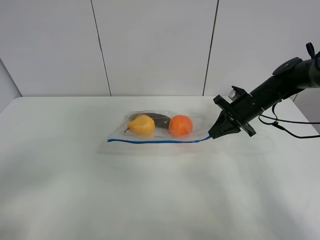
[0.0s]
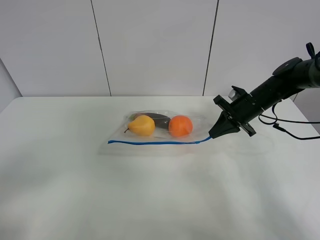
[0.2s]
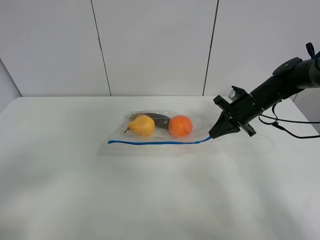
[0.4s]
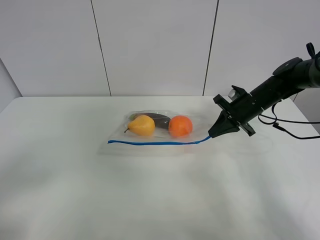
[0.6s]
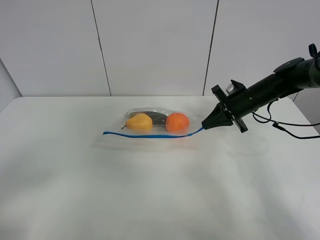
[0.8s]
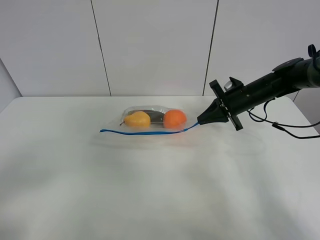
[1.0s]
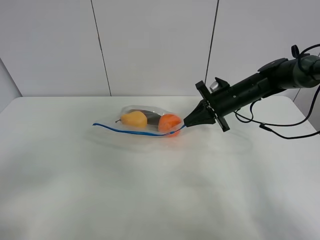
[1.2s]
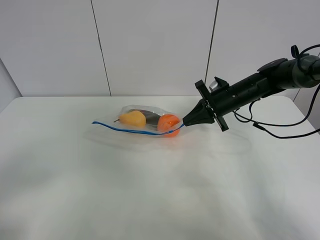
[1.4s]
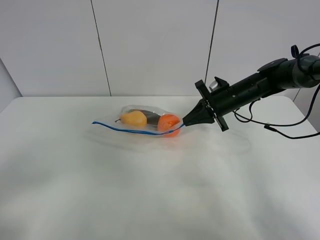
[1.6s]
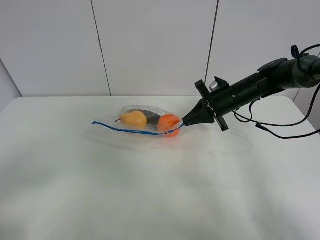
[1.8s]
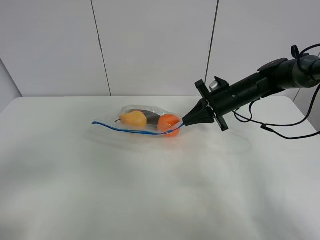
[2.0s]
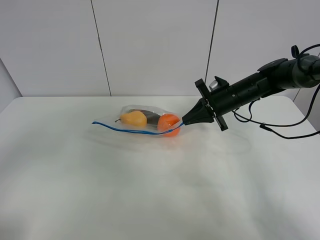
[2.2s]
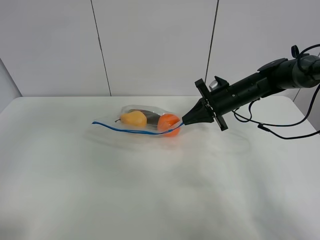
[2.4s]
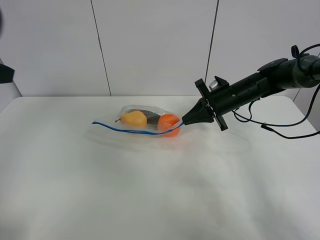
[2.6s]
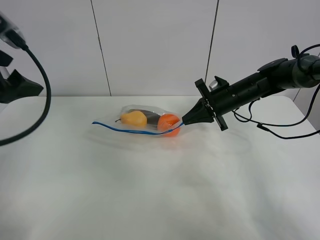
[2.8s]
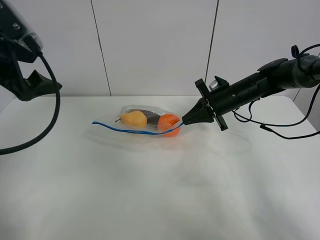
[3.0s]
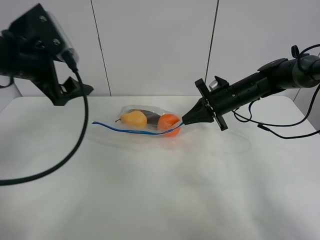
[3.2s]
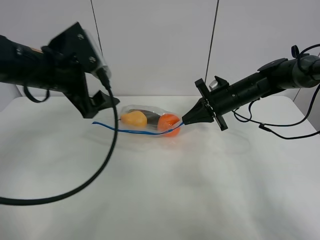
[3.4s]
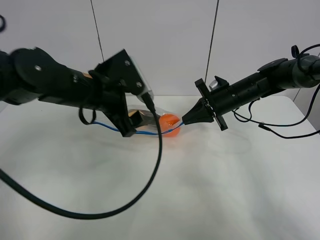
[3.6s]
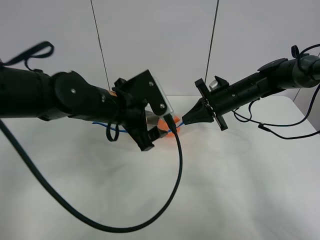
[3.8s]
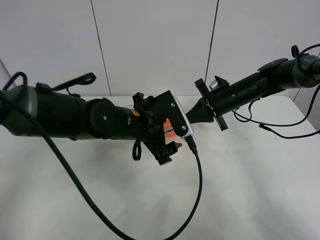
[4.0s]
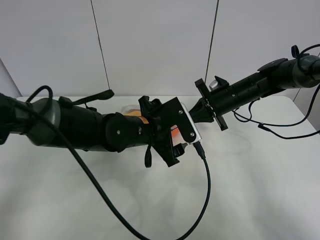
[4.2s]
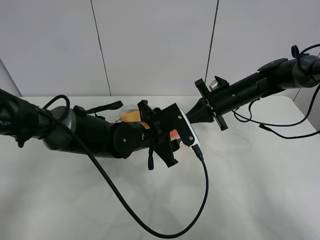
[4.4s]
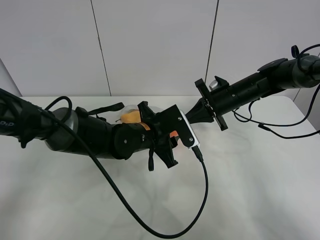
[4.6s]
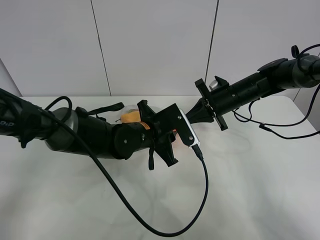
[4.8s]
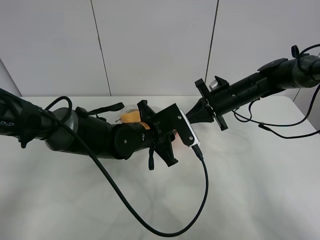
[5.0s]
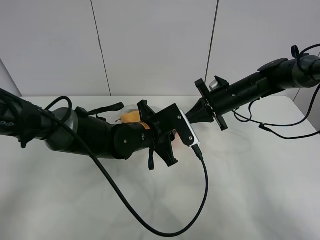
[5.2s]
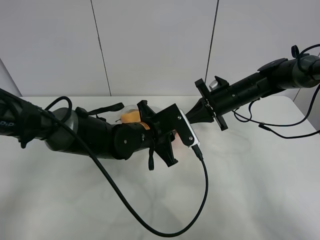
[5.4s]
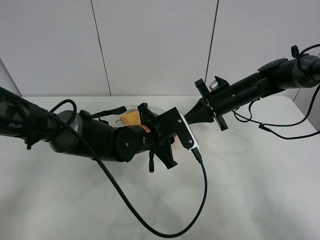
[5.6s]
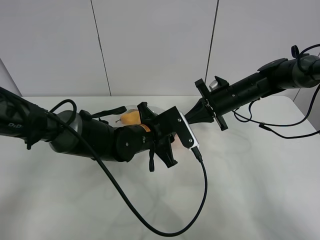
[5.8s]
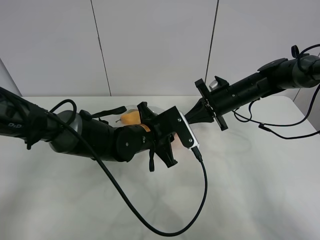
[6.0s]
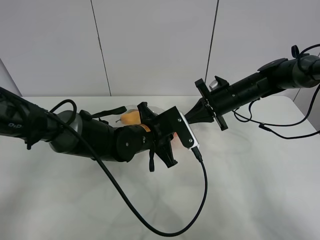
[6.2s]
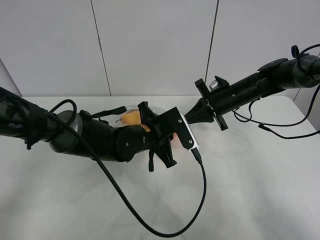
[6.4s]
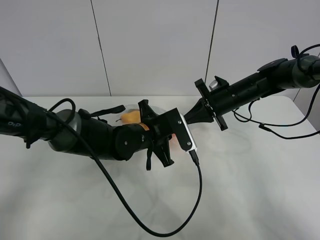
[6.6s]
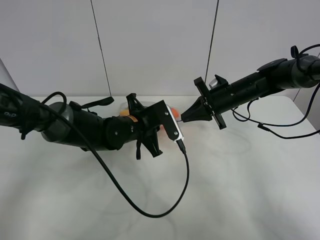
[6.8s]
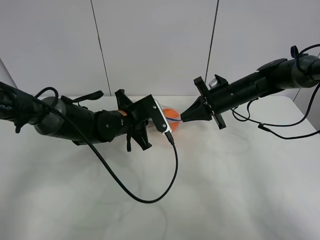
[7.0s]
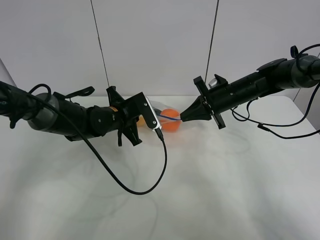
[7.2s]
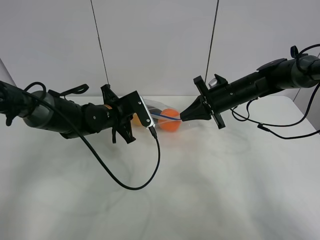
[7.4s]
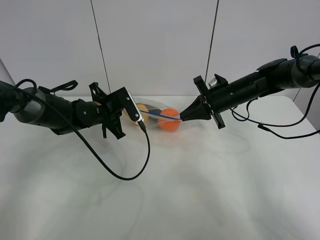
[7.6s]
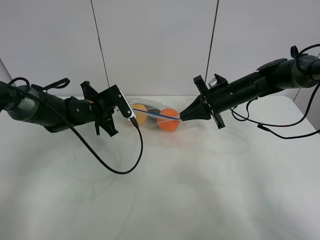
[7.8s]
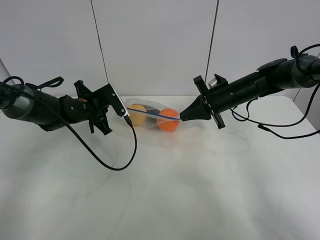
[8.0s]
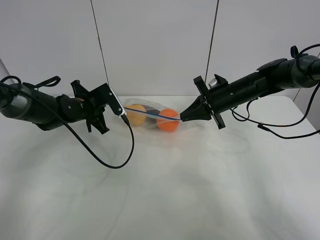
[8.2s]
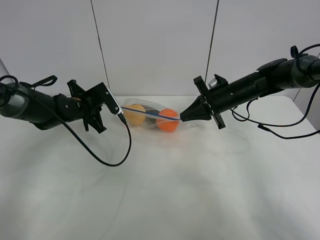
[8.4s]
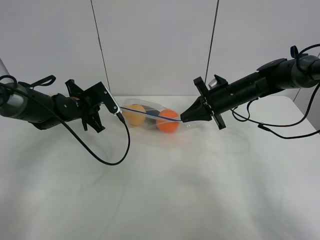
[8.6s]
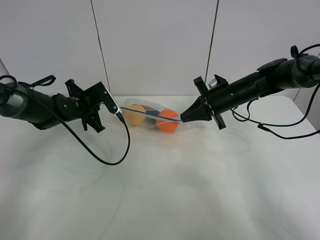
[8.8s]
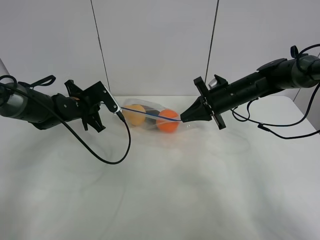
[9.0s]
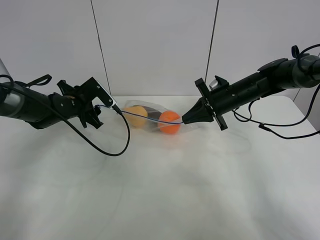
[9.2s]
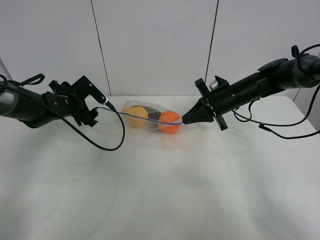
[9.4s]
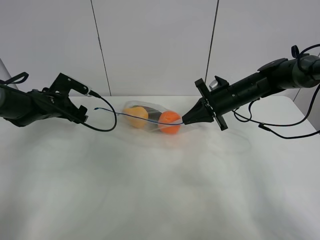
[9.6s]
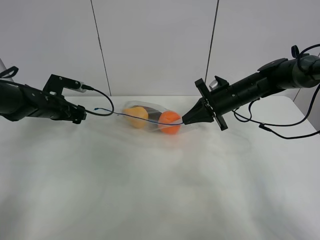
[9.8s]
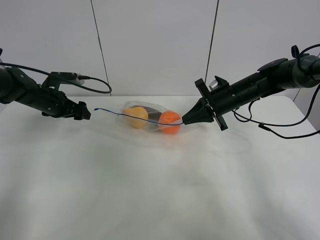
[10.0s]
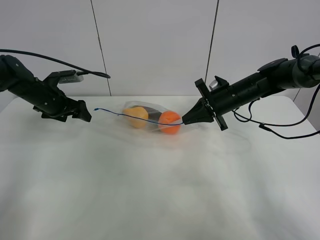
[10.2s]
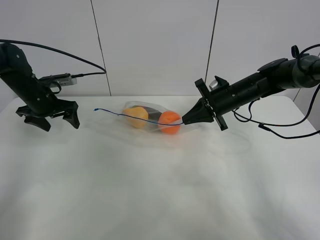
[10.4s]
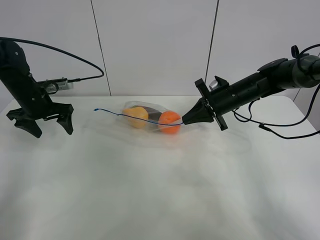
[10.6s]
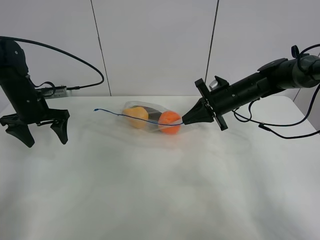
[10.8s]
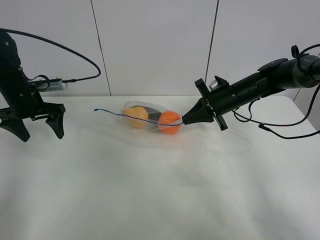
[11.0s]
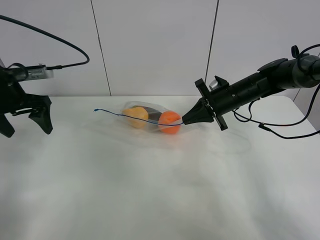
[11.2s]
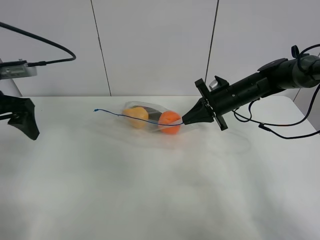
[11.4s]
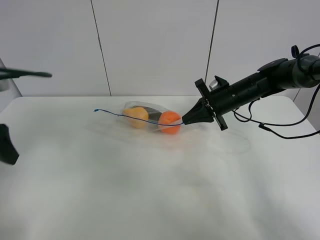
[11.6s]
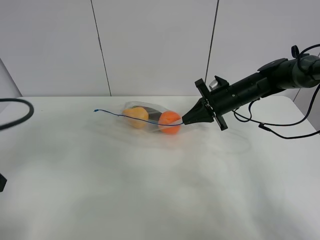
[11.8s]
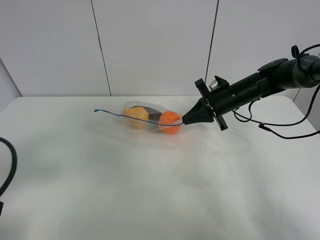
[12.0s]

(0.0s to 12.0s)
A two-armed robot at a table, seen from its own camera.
Step, 0.2s - 1.4s: Lift the fruit bag with your right gripper.
Step, 1.6s - 9.4s: Pull the fruit bag with left gripper.
0.0s - 1.6s: The right gripper is displaced to the left by approximately 5 cm.
1.6s - 3.0s: The left gripper goes about 25 cm forward.
3.0s - 4.4s: The left gripper travels to the right and downward by approximately 30 cm, and closes its fingers.
4.4s - 6.0s: The left gripper closes up.
6.0s - 7.6s: The left gripper goes roughly 15 cm to the left and forward.
7.6s - 9.0s: The left gripper shifts approximately 5 cm to the left.
9.0s - 10.4s: The left gripper moves to the left, roughly 10 cm, and opens.
10.4s - 12.0s: The left gripper is displaced backward by about 30 cm.

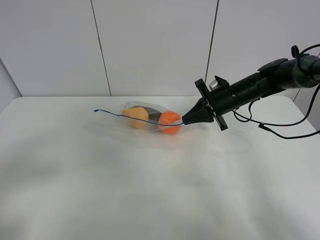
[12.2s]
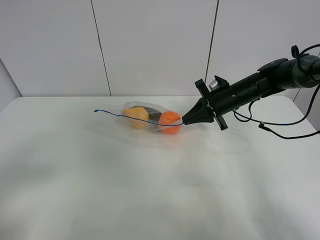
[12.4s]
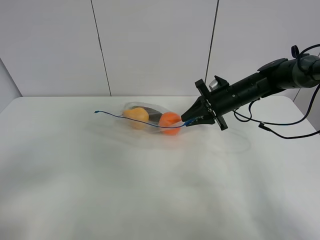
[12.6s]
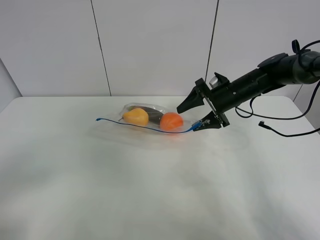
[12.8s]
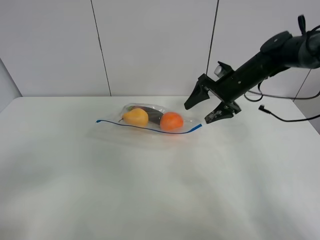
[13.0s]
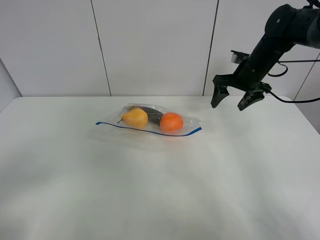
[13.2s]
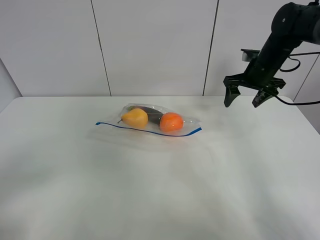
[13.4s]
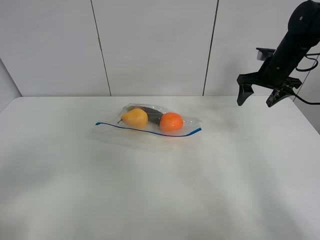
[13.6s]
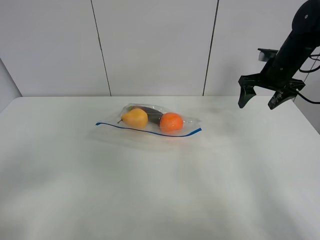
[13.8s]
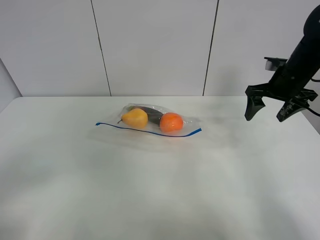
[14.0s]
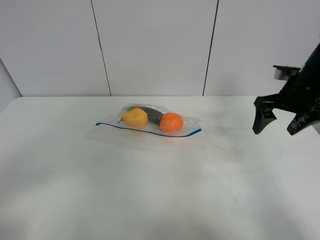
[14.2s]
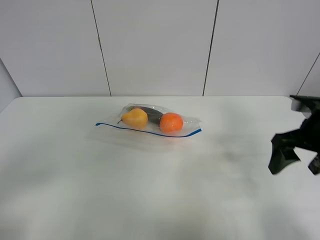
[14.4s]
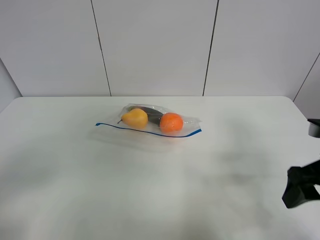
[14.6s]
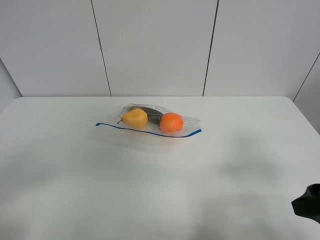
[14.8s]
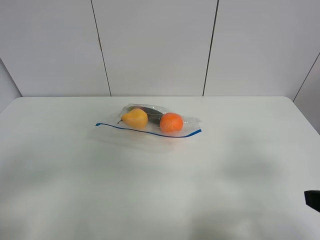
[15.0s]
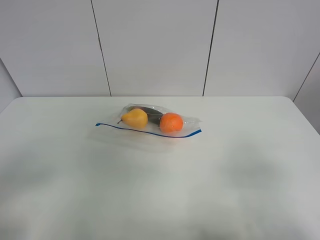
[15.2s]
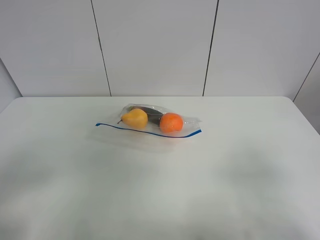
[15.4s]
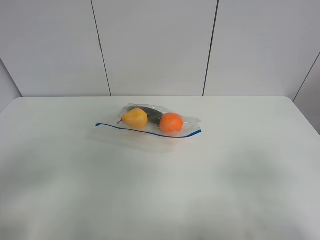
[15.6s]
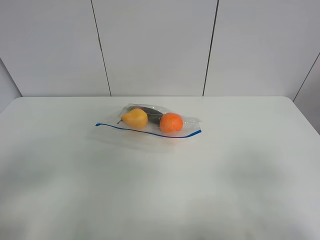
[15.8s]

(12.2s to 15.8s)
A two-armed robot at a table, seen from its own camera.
12.2s - 14.0s: The right gripper goes roughly 15 cm to the right and upward, and opens its fingers. Meanwhile the left gripper is displaced backward by approximately 5 cm.
14.0s - 15.8s: The right gripper shifts some 35 cm backward.

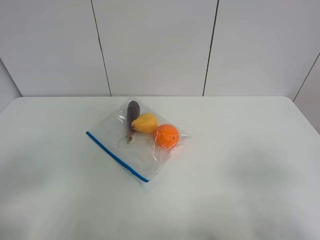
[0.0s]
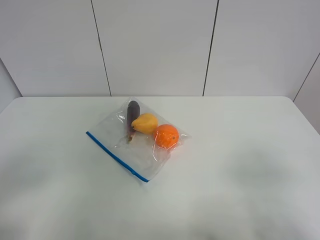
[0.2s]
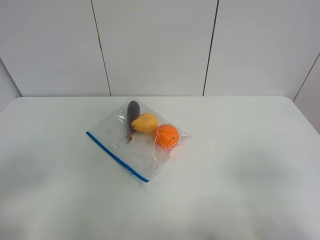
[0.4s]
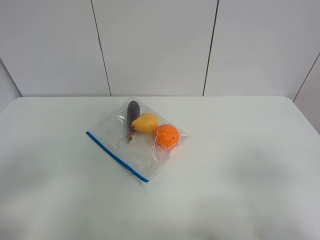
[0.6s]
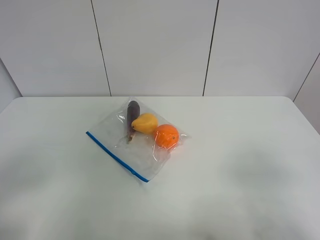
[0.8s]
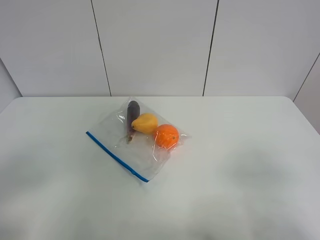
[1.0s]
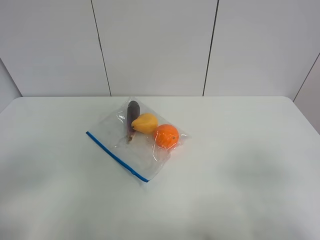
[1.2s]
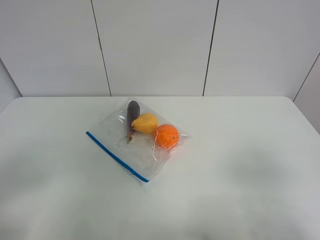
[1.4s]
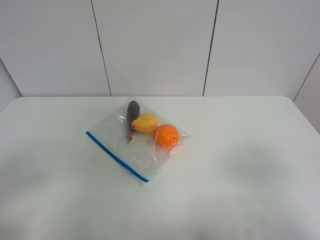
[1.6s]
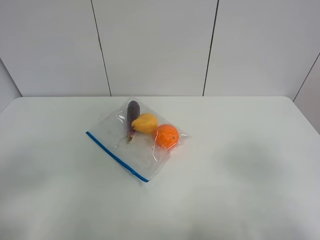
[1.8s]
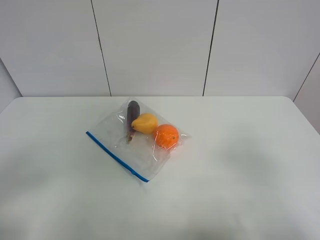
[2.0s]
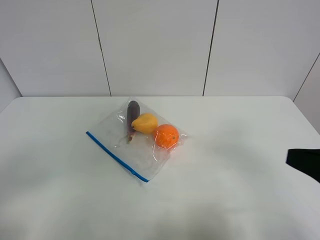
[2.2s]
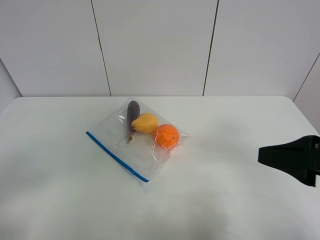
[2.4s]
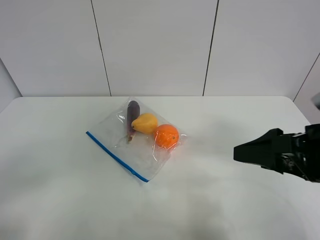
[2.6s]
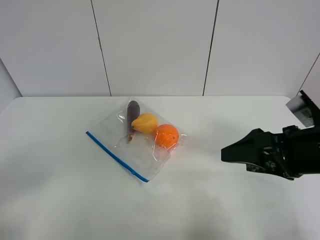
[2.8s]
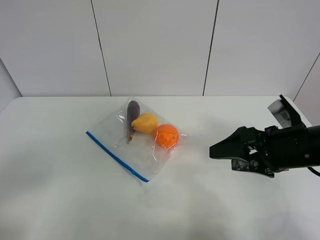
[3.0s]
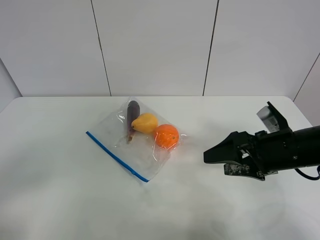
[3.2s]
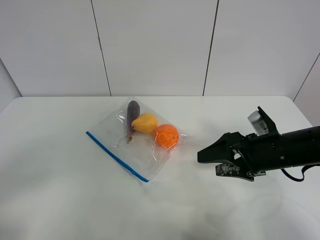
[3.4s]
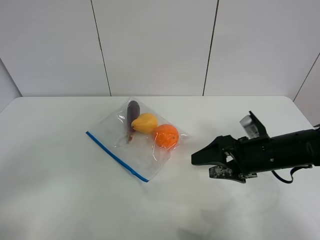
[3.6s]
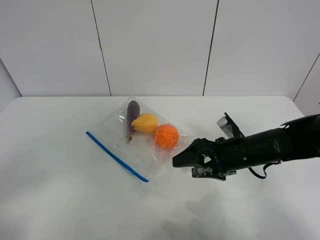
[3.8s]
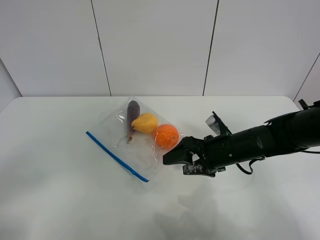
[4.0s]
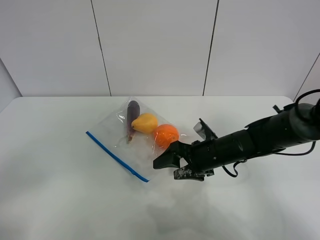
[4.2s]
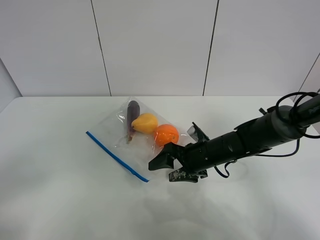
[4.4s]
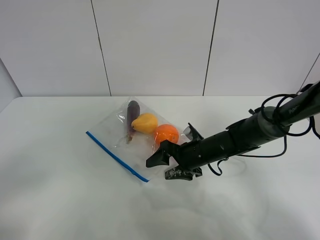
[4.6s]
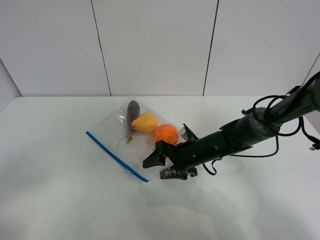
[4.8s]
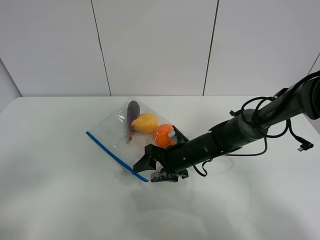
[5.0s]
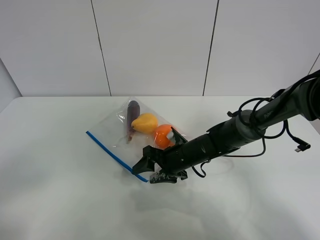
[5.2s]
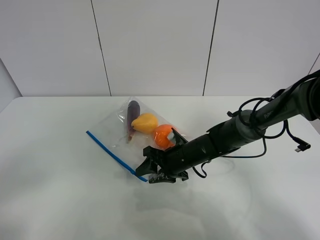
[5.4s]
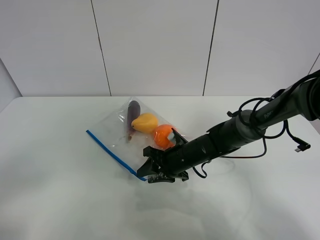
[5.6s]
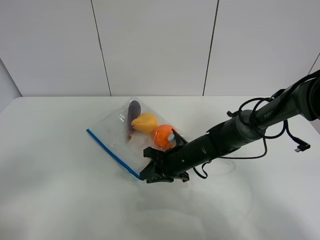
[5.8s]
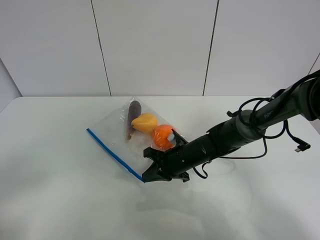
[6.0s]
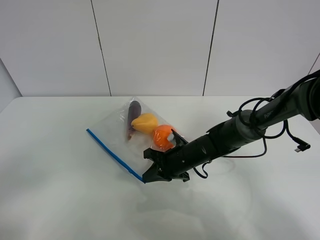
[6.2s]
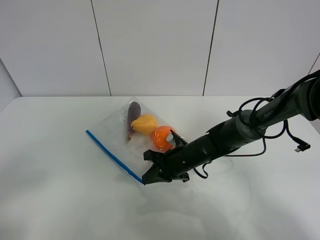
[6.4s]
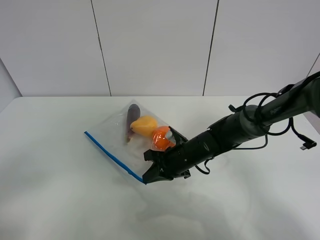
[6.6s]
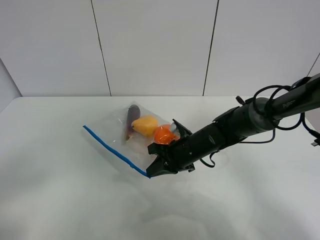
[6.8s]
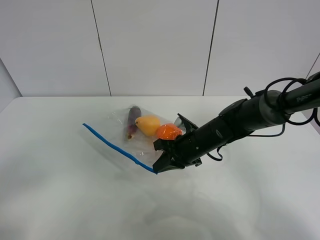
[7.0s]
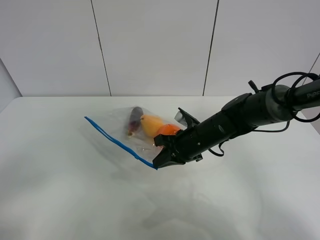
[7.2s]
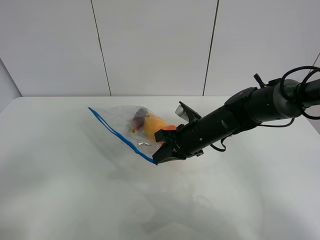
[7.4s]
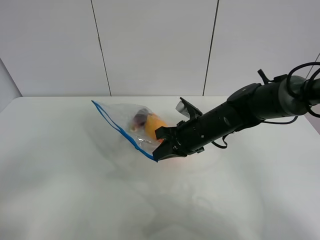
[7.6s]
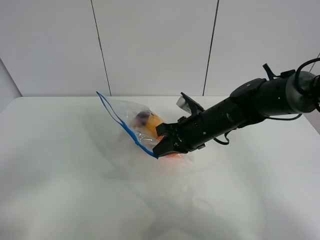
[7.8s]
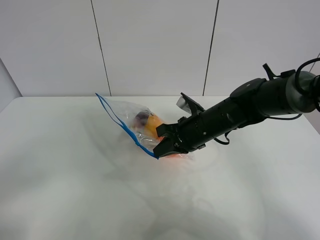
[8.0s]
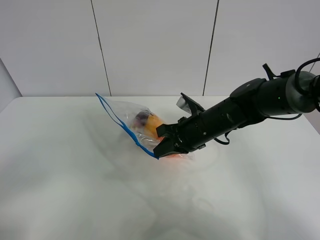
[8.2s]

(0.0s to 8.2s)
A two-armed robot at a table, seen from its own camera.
Step, 0.0s - 6.0s: Grasp the fruit bag with right gripper.
Step, 6.2s - 8.0s: Lift the fruit bag with your right gripper.
1.6s - 3.2s: The right gripper goes about 25 cm forward and downward.
3.2s - 5.0s: The right gripper shifts some 20 cm to the left, downward and forward.
5.0s - 6.6s: The right gripper closes its fingers.
6.6s - 8.2s: The right gripper is displaced upward by some 10 cm.
